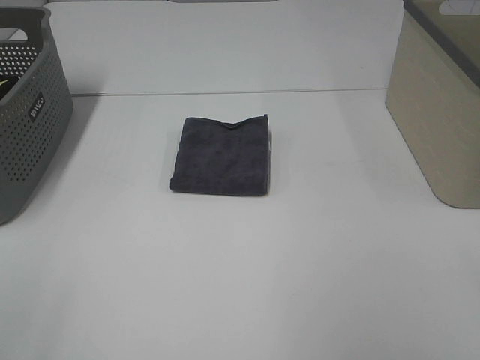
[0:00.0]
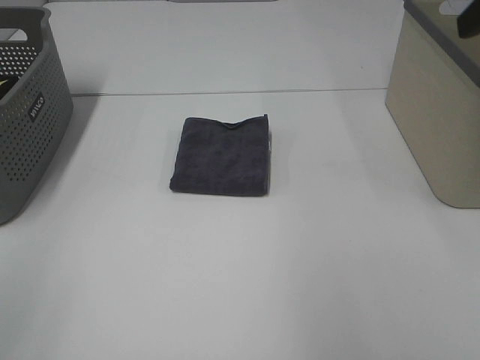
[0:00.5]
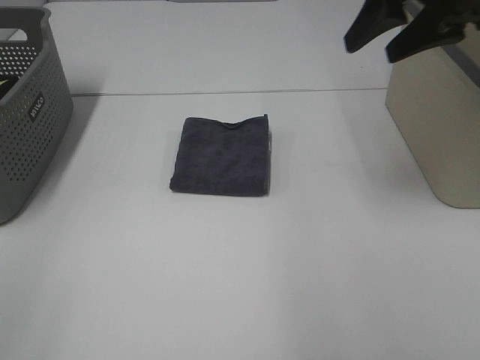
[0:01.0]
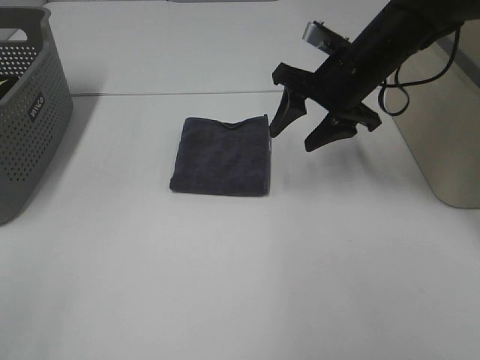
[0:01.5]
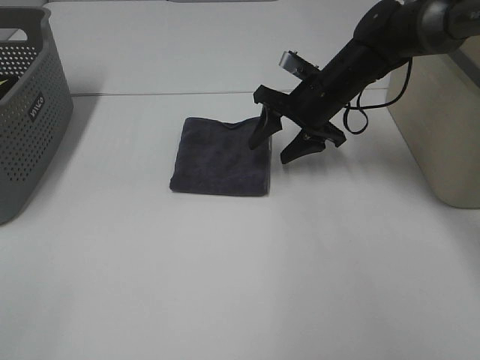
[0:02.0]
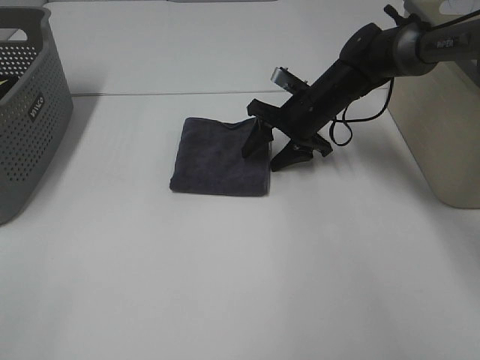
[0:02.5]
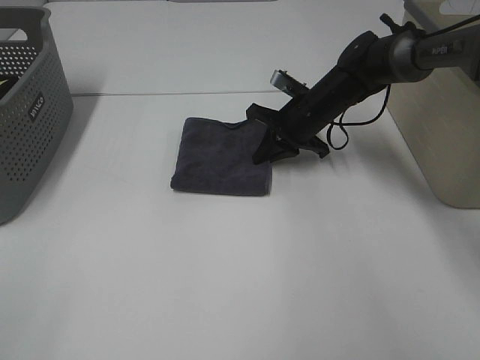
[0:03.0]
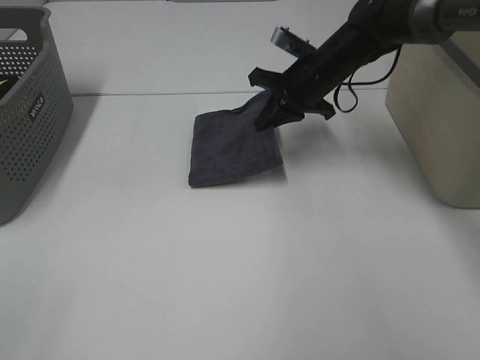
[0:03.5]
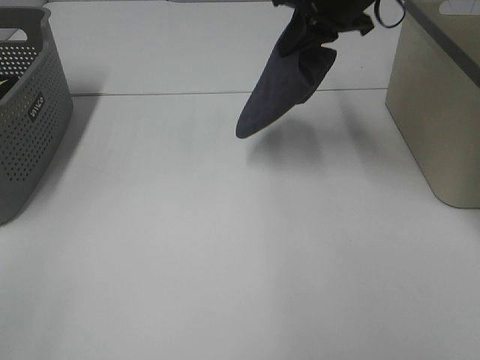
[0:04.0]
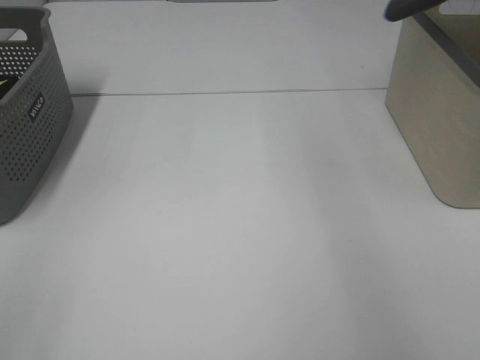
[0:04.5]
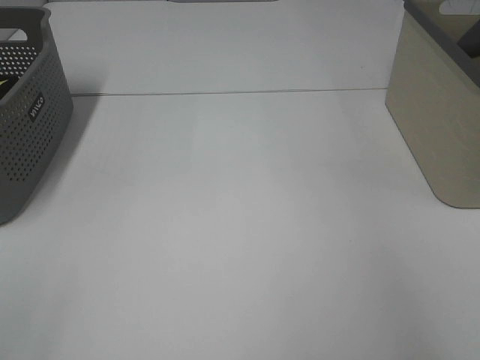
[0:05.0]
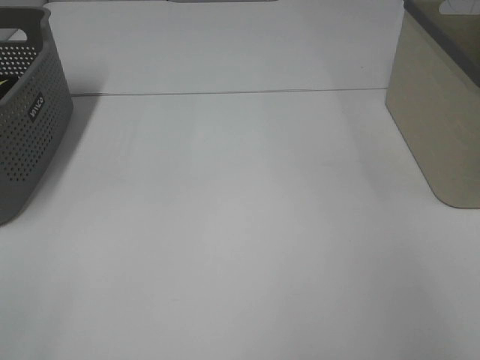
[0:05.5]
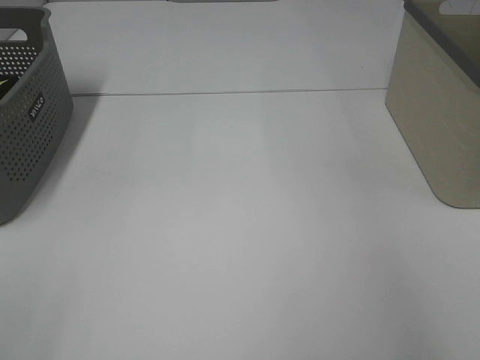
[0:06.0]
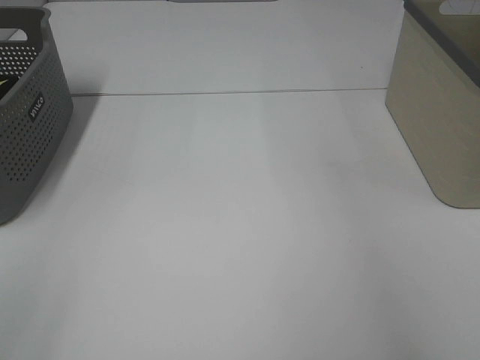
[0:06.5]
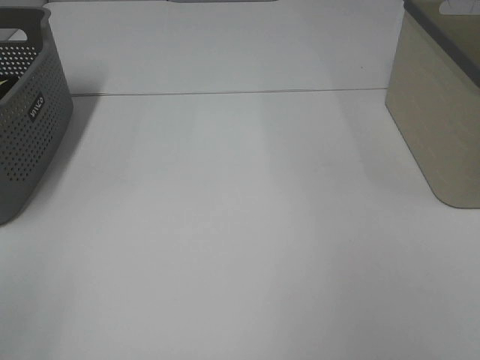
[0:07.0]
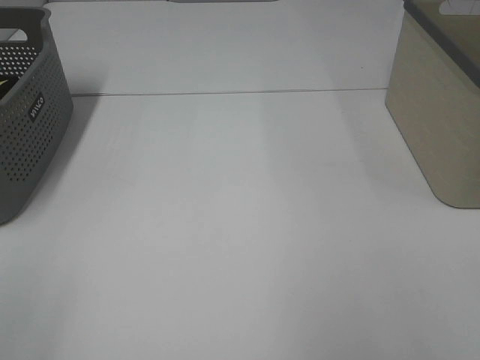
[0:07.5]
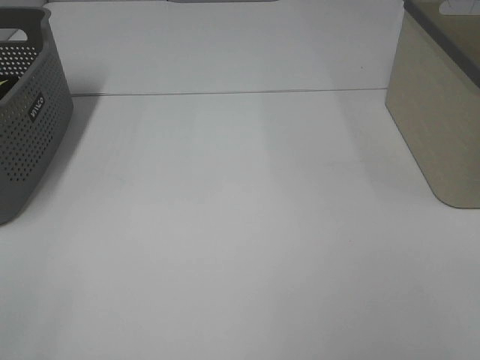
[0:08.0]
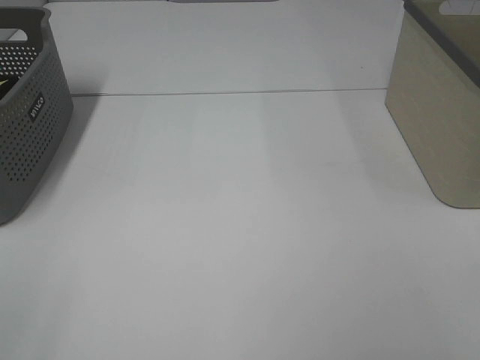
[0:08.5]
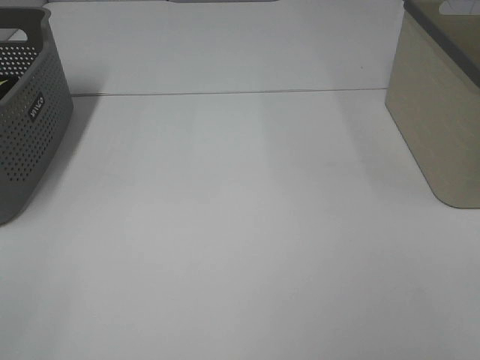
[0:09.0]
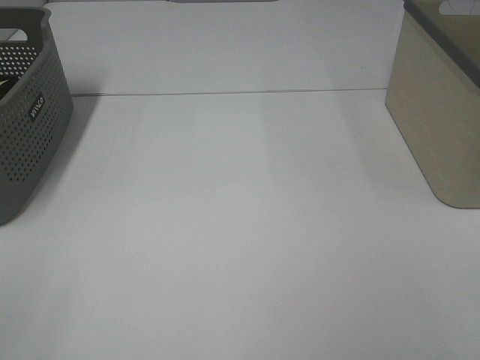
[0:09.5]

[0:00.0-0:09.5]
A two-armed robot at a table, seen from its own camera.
Step, 0:00.0 to 0:03.0: Right hand: grab the folded grey towel.
Step, 0:03.5 to 0:05.5: Right hand: place the grey towel in right basket.
0:00.0 to 0:02.0: The right gripper heads forward, downward and to the left, covering some 40 cm.
0:02.0 to 0:04.0: The right gripper heads upward, covering about 15 cm, and closes up.
0:04.0 to 0:05.5: The right gripper moves to the right, some 25 cm, and opens its fingers.

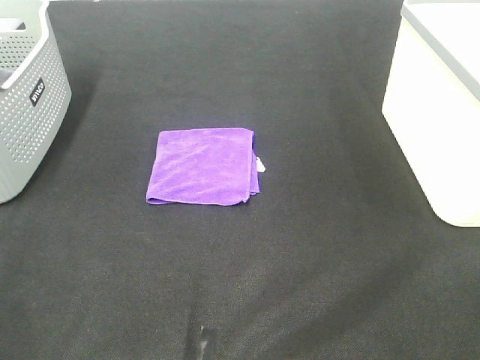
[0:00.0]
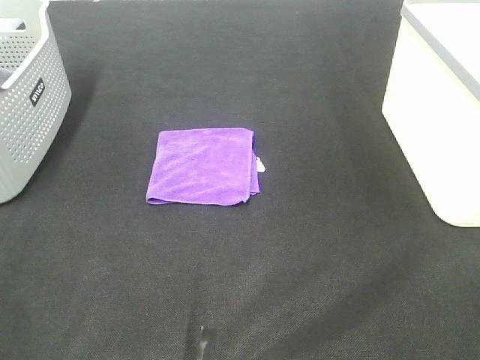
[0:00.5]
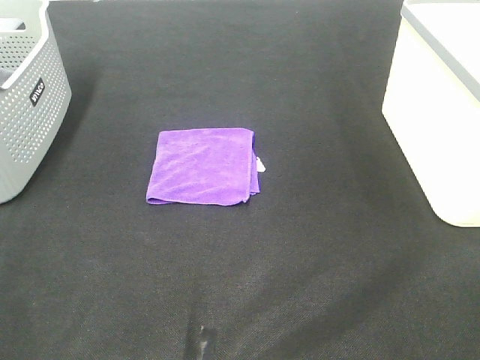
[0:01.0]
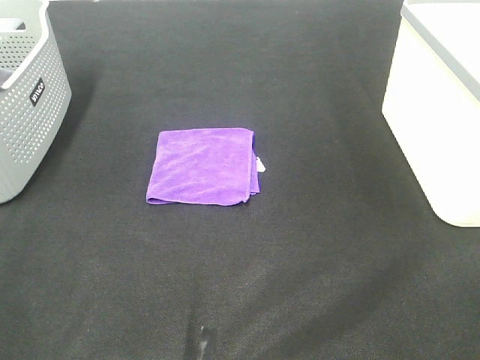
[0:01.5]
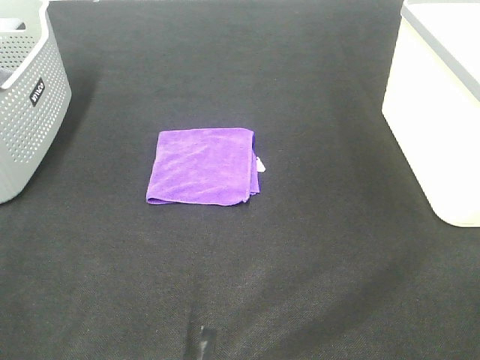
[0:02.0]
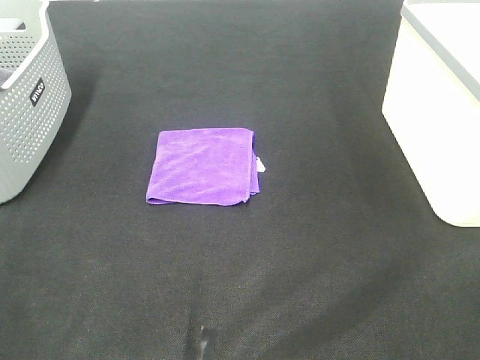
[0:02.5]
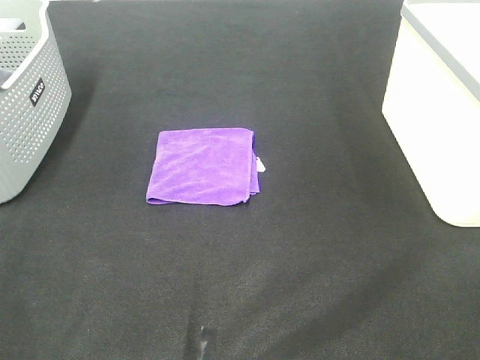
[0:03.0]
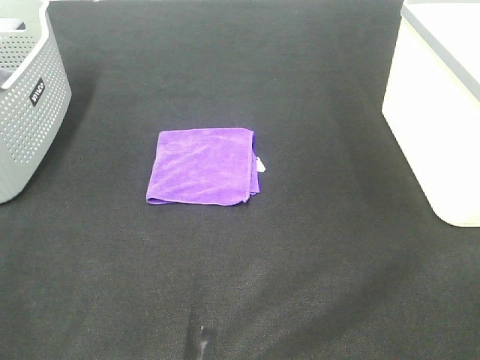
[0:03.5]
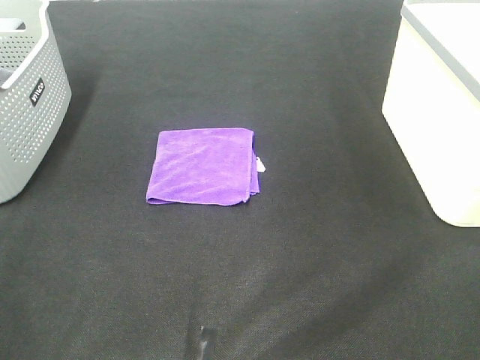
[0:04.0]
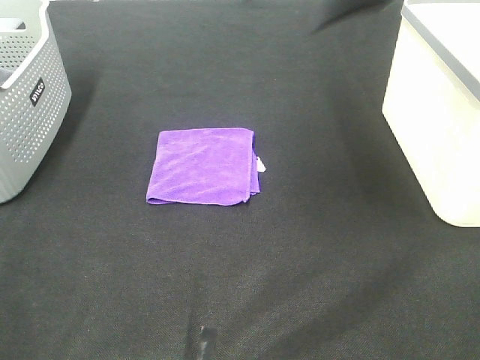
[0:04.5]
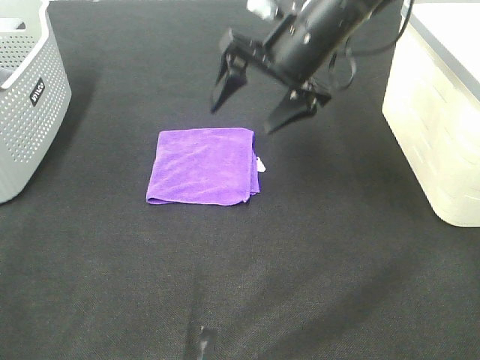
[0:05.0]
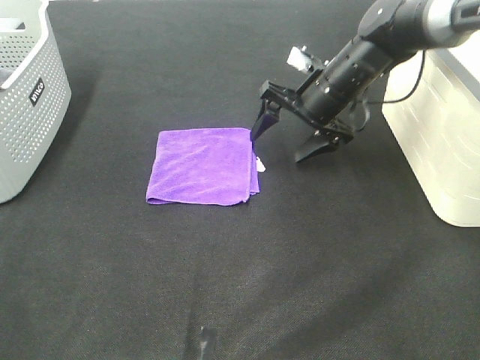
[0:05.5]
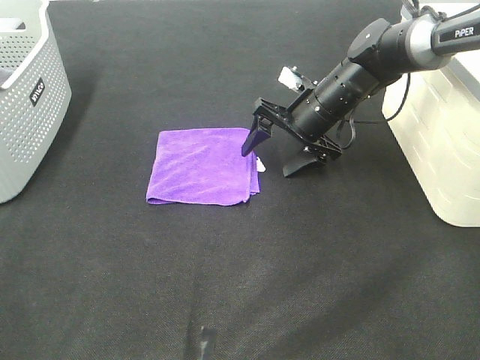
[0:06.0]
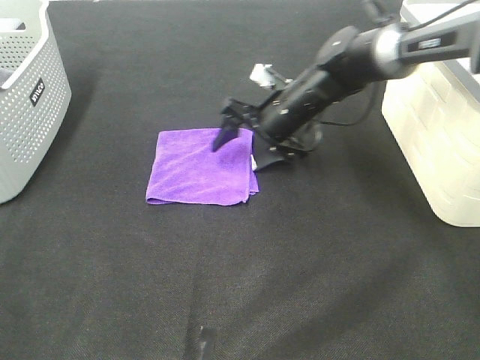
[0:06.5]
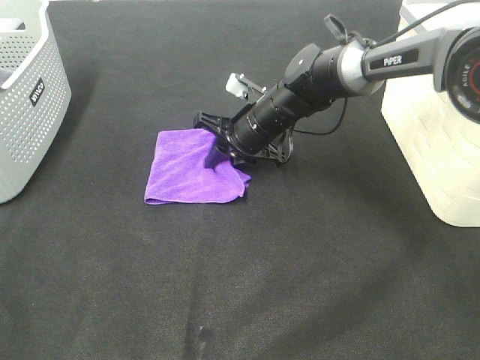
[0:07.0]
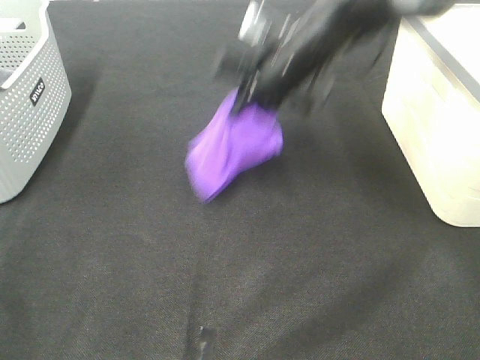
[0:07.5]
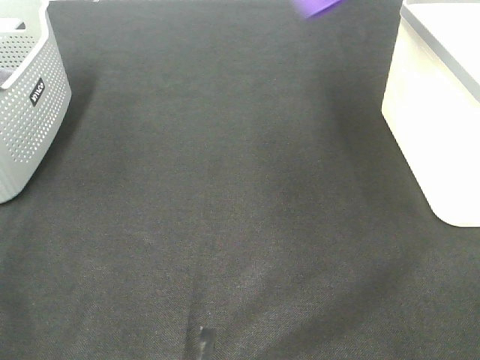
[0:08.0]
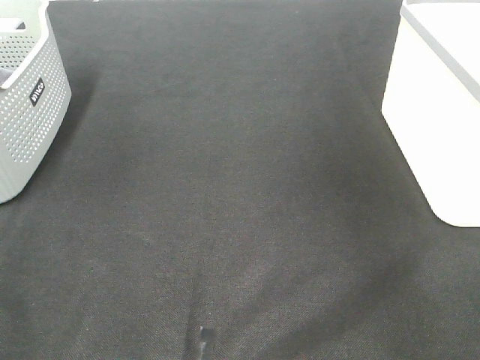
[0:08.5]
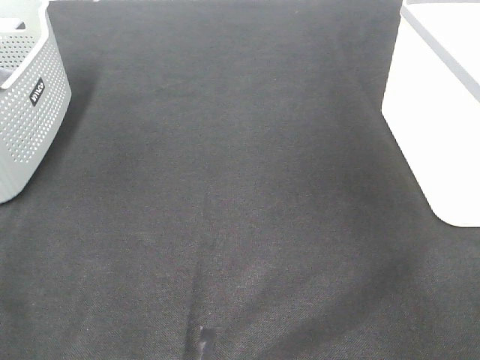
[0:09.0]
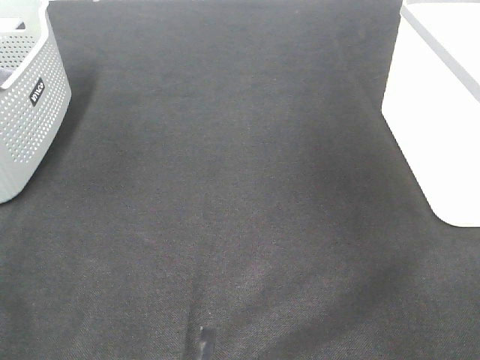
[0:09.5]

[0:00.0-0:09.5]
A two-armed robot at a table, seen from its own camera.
Step, 0:00.0 to 0:07.0: Right hand: grab the folded purple towel.
Step, 0:07.5 to 0:09.0: Right hand: place the purple towel in right basket.
0:00.0 to 0:02.0: Both grippers stay put.
0:04.0 to 0:05.5: The right gripper heads forward, downward and to the left, covering approximately 40 cm.
0:05.5 to 0:07.5: The right gripper is displaced upward by roughly 10 cm, and closes.
0:07.5 to 0:09.5: The right gripper moves to the right and upward, roughly 30 cm, and opens up.

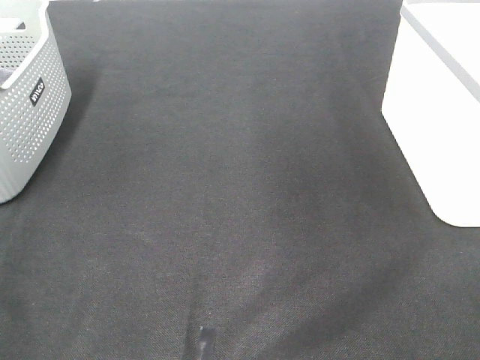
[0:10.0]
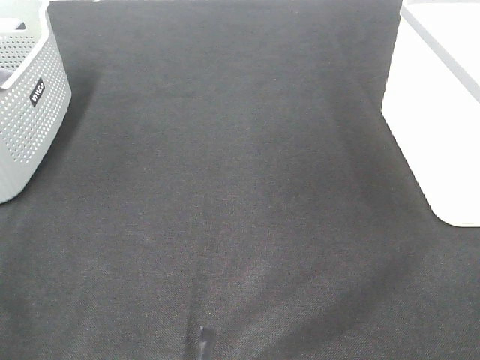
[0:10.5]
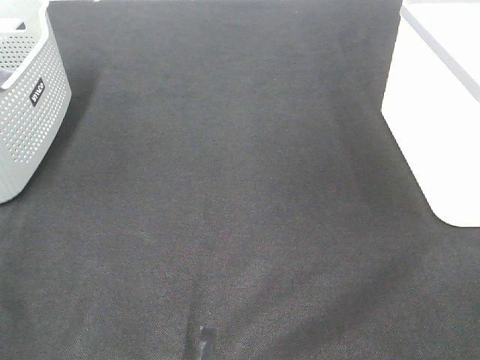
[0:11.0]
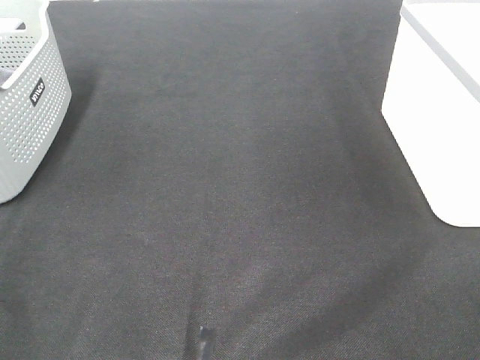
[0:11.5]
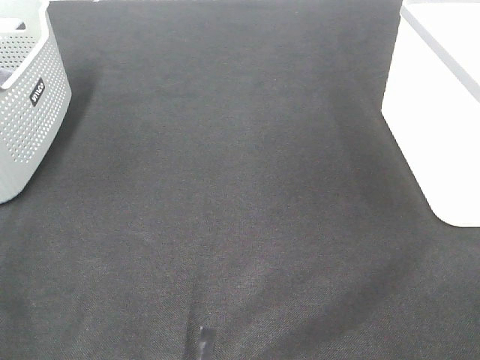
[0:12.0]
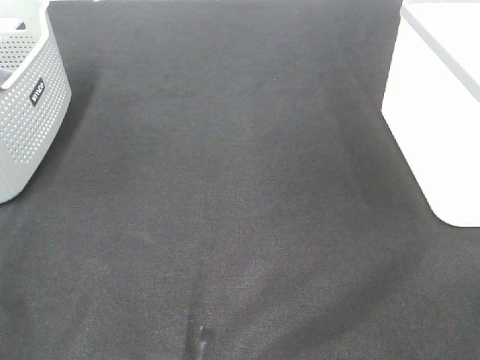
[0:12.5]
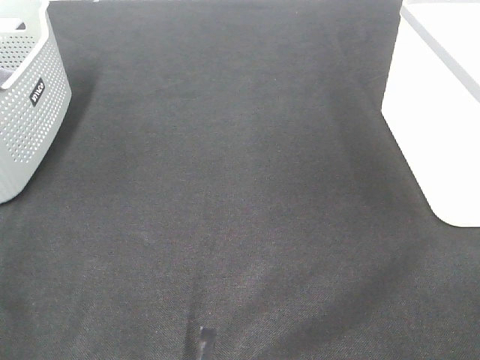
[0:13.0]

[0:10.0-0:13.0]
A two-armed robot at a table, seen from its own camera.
0:11.5 to 0:13.0: Both grippers stay put.
